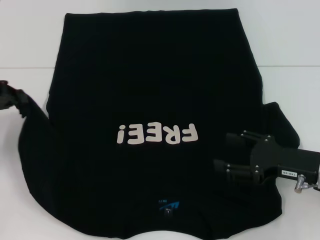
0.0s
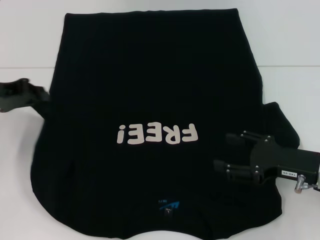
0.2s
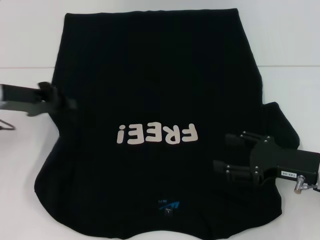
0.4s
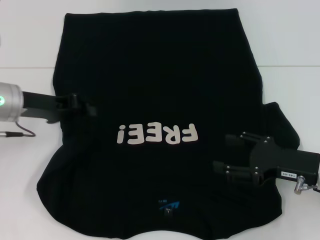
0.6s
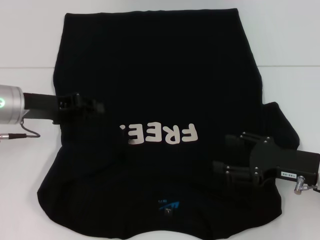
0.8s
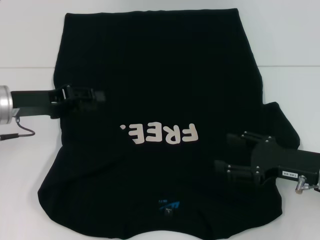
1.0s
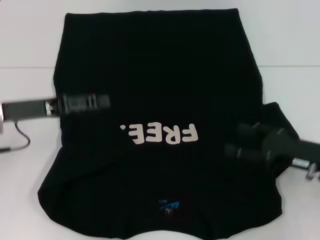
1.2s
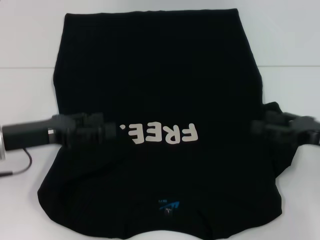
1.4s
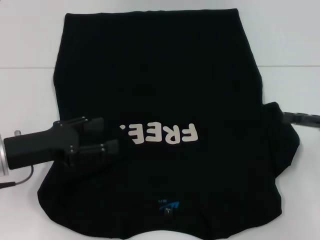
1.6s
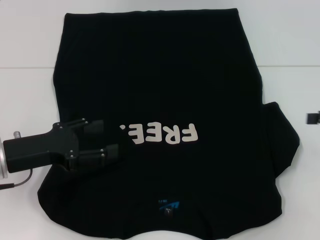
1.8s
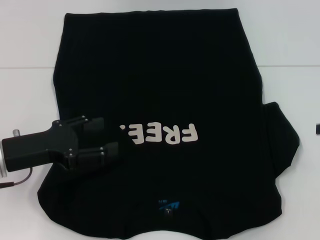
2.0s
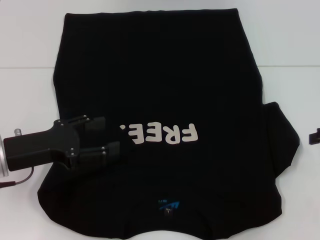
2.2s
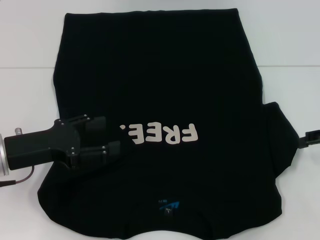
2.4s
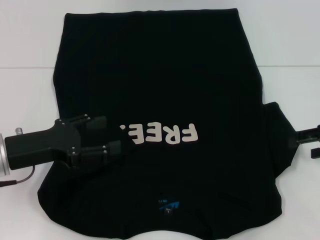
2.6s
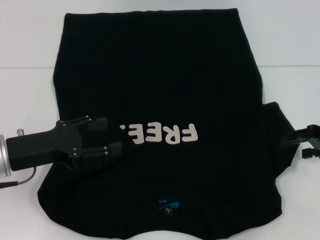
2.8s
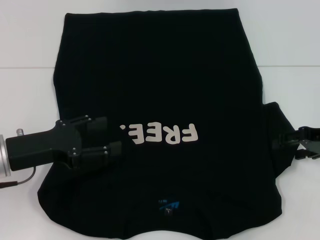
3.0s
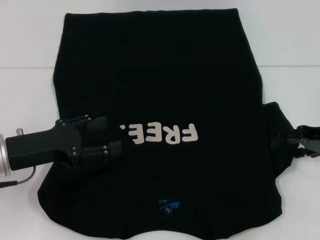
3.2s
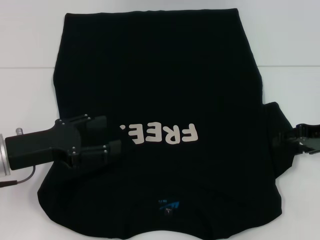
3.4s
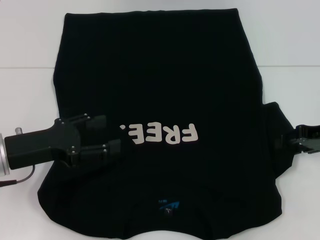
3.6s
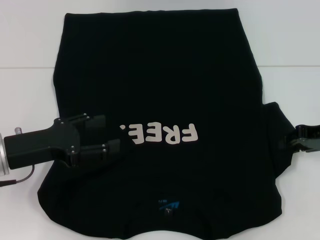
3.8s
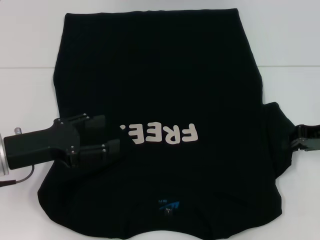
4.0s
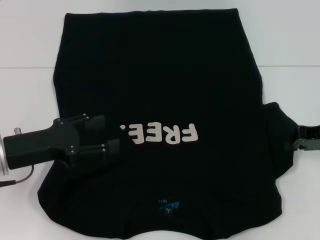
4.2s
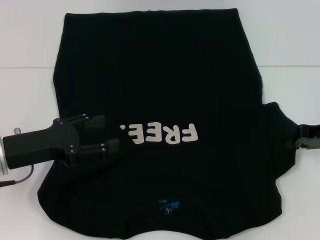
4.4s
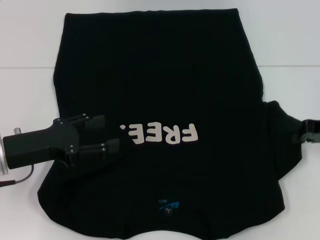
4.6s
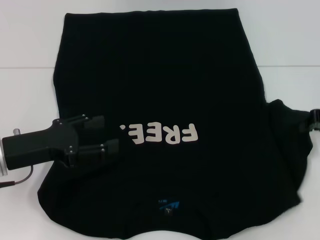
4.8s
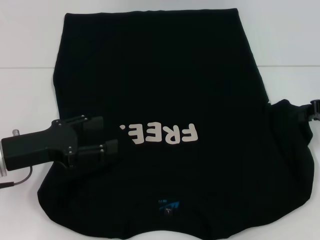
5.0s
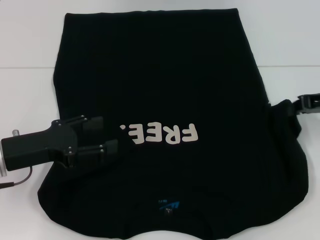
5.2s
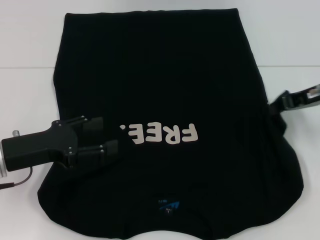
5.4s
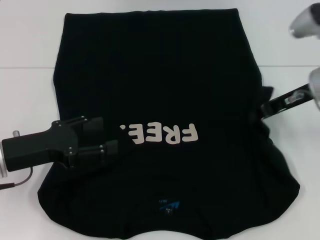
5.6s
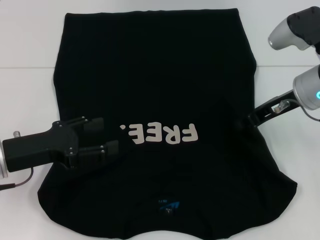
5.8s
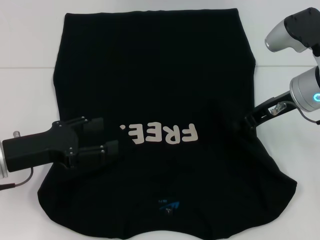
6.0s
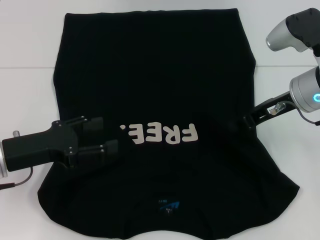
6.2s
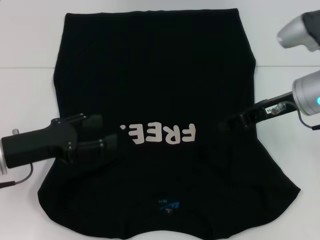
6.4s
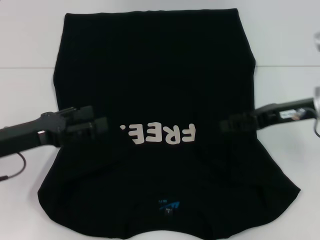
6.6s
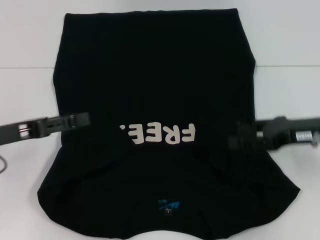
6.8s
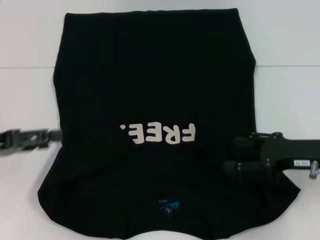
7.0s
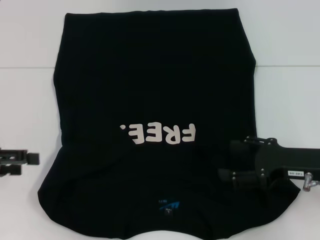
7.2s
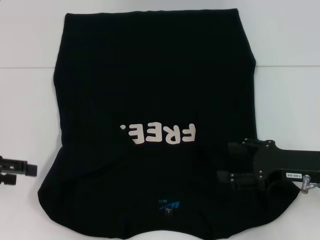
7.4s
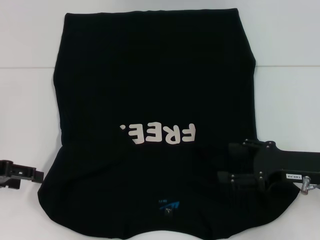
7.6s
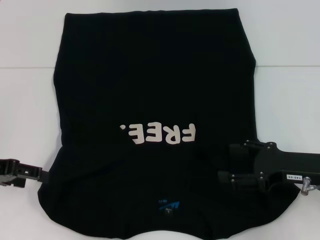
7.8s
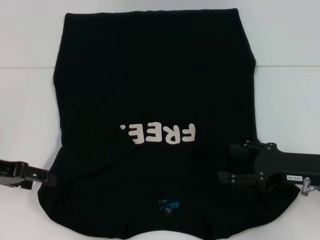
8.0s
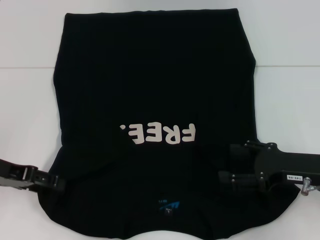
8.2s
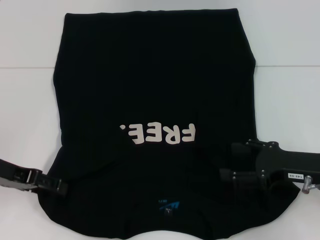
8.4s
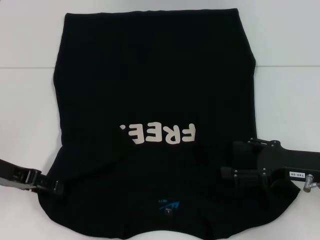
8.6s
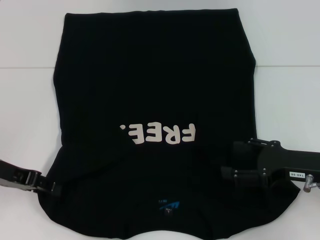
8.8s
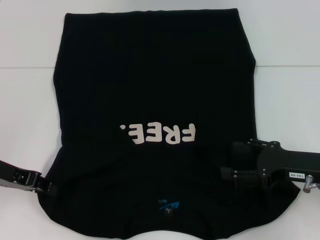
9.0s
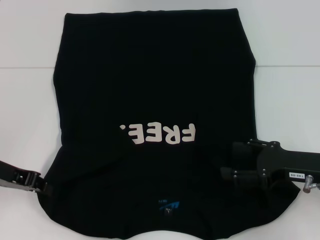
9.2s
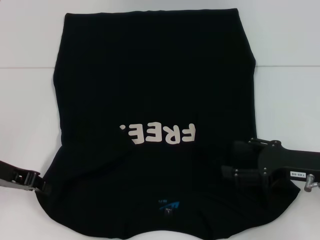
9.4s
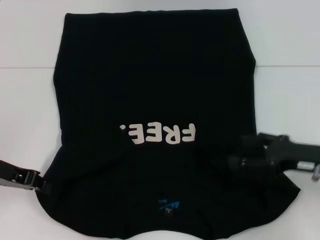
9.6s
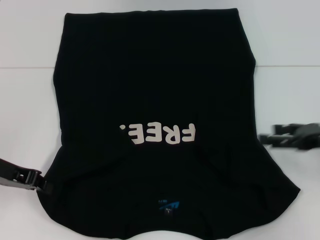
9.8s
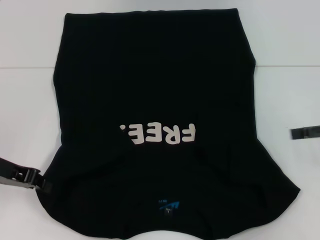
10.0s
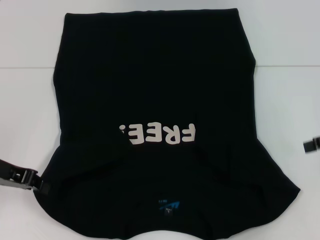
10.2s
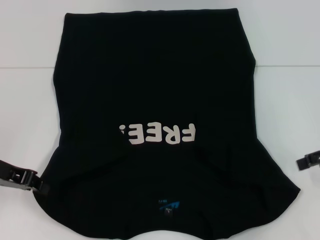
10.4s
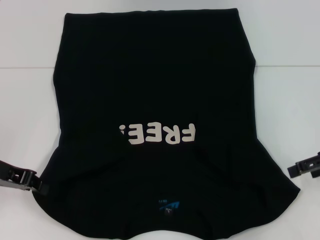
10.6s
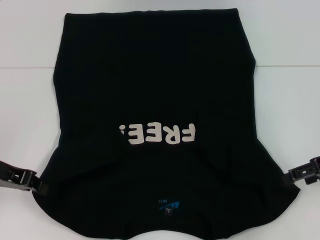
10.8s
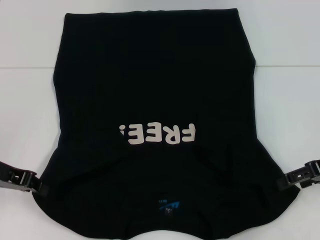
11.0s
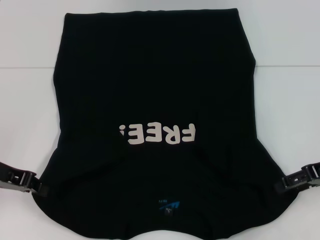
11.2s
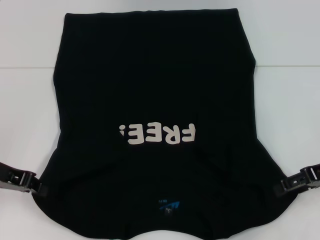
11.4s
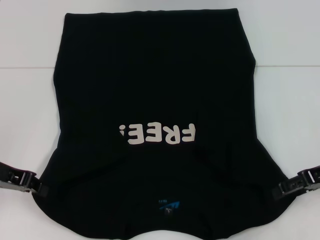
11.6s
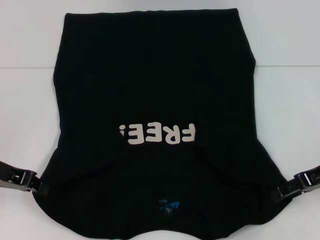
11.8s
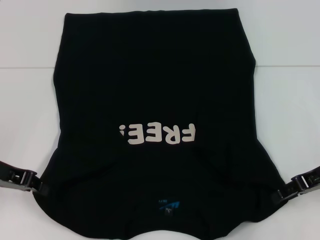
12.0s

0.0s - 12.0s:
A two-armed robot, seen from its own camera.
Step, 1.0s - 6.4s: Fold the bottom right sleeve with your right hand.
Step, 6.6s - 9.6s: Grab the bottom left corner with your left hand.
0.0s - 1.6s: The left gripper moves to the right, backward and downward, roughly 15 cm, and opens its fingers, while the right gripper shifts roughly 10 cm to the right and upward.
1.6s - 3.0s: The right gripper changes place by some 5 cm.
3.0s - 4.4s: The right gripper closes its fingers.
4.4s - 6.0s: The right gripper is displaced to the left by approximately 10 cm.
6.0s - 7.6s: The left gripper goes roughly 10 cm to the left; the right gripper moves backward, downward and to the right, approximately 15 cm, and opens.
7.6s - 9.0s: The left gripper shifts by approximately 5 cm, and closes.
9.0s - 10.4s: The left gripper closes up. The right gripper moves upward and to the right, some 10 cm.
10.4s - 12.0s: The right gripper travels to the left by about 5 cm.

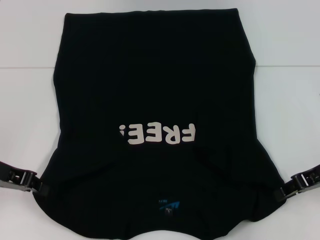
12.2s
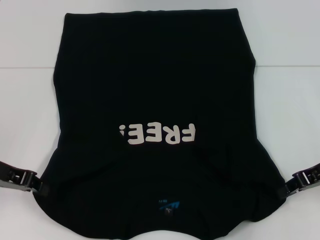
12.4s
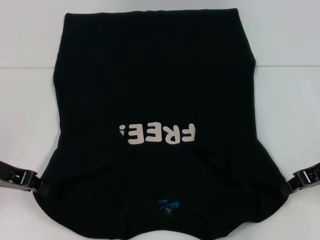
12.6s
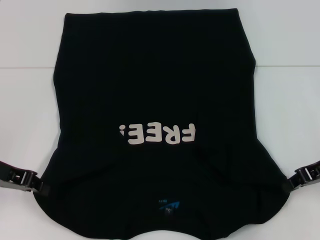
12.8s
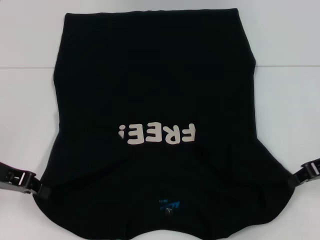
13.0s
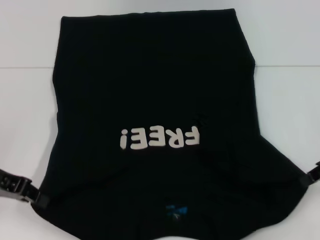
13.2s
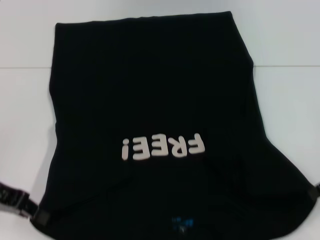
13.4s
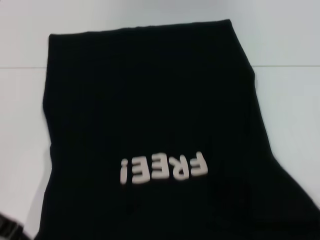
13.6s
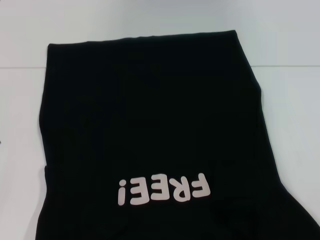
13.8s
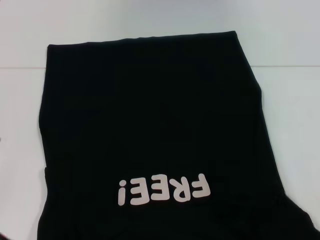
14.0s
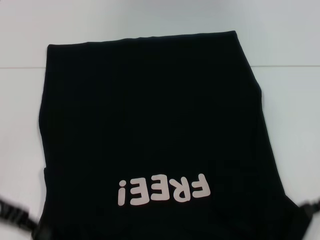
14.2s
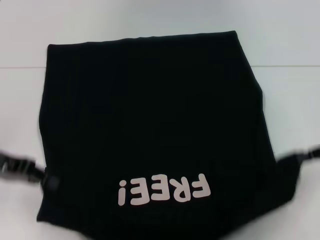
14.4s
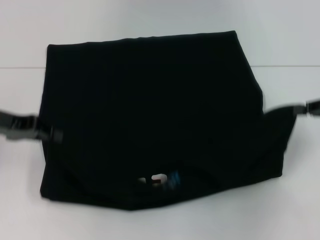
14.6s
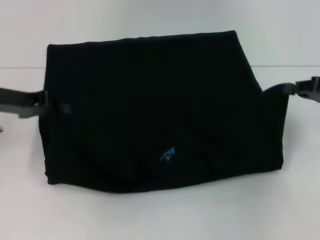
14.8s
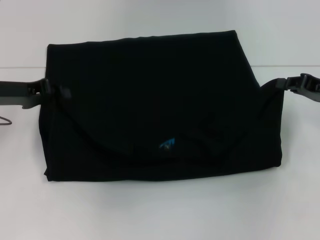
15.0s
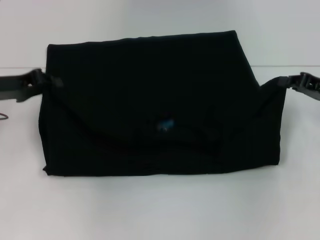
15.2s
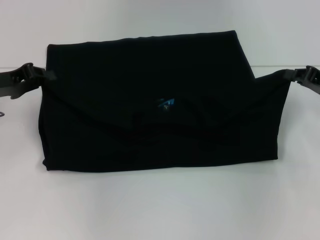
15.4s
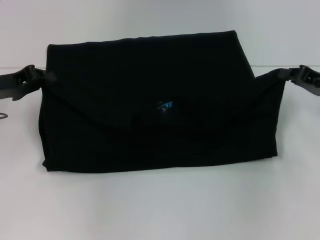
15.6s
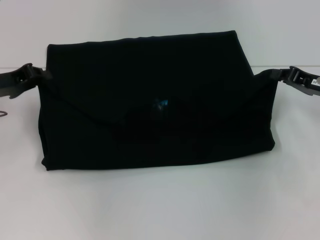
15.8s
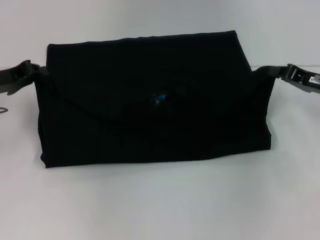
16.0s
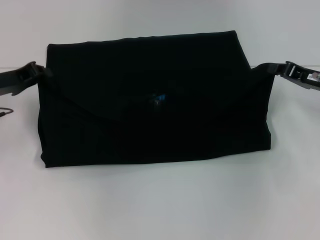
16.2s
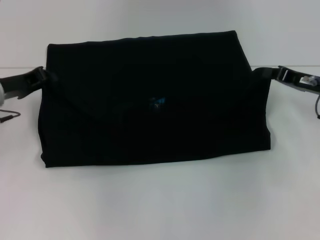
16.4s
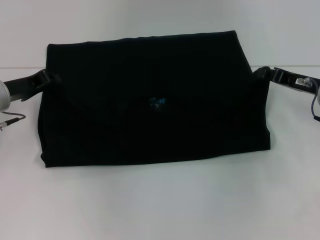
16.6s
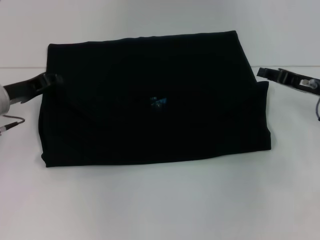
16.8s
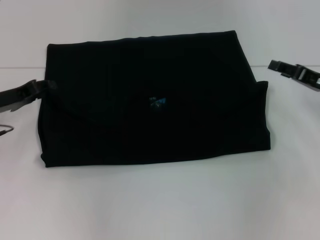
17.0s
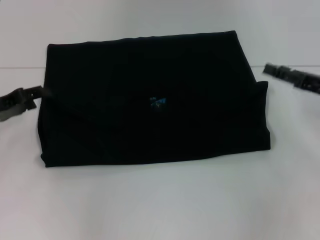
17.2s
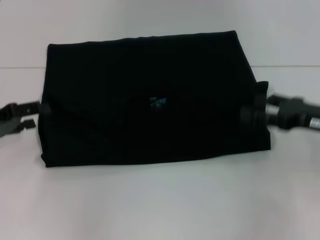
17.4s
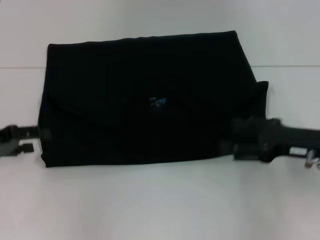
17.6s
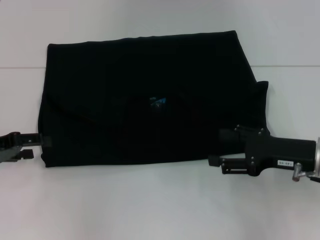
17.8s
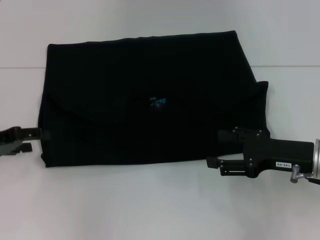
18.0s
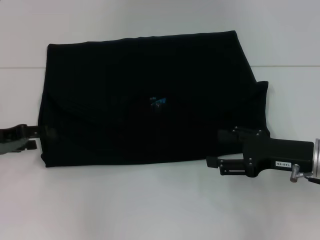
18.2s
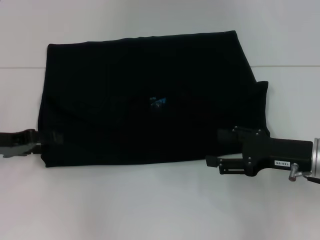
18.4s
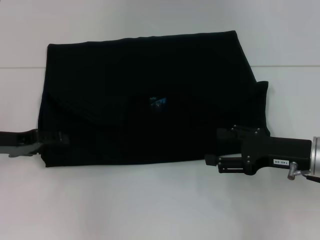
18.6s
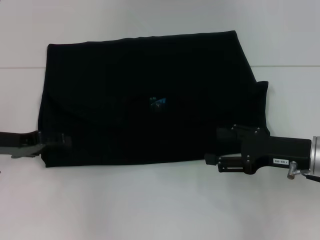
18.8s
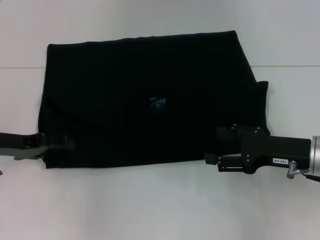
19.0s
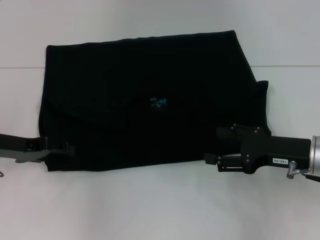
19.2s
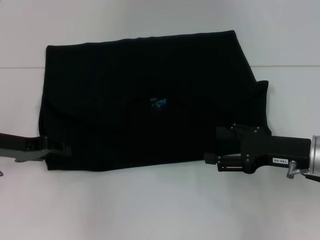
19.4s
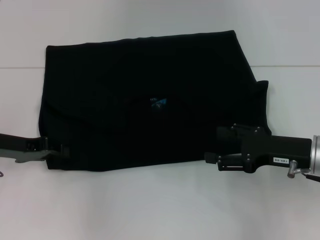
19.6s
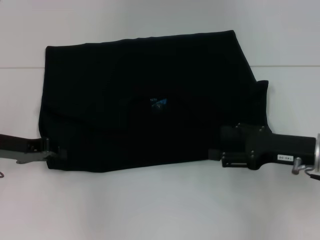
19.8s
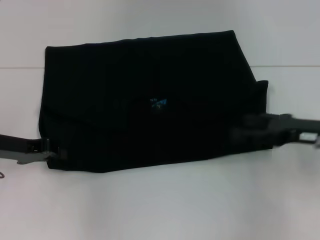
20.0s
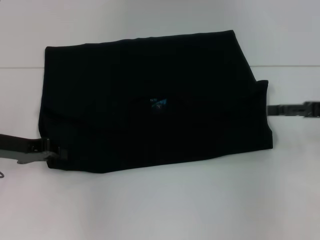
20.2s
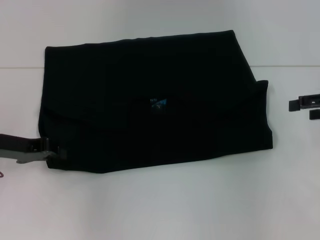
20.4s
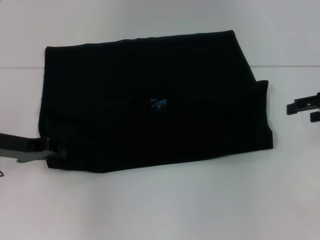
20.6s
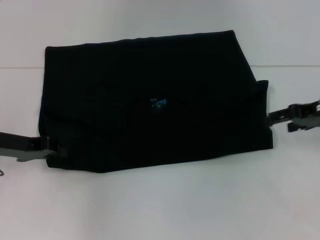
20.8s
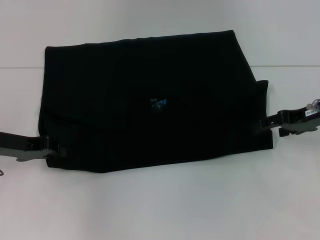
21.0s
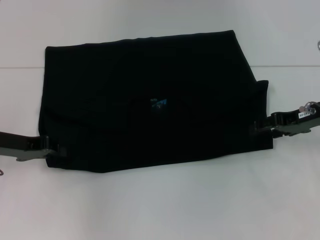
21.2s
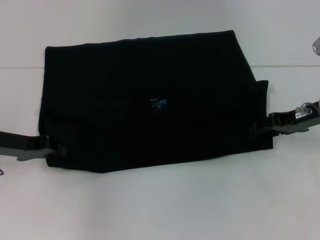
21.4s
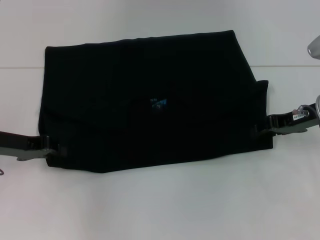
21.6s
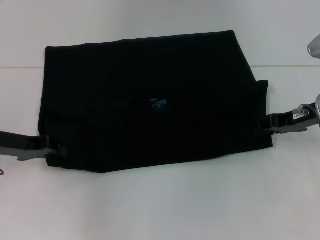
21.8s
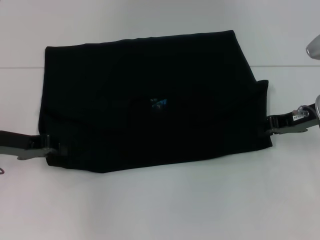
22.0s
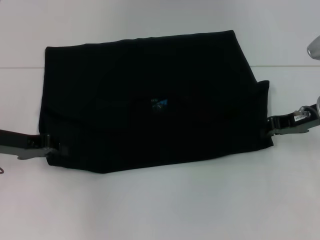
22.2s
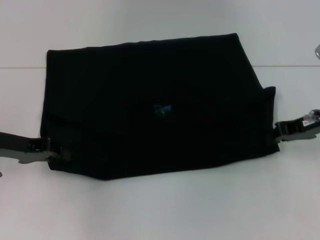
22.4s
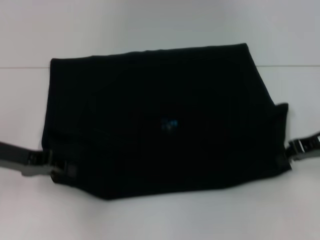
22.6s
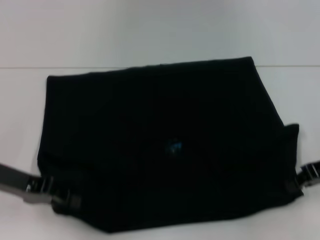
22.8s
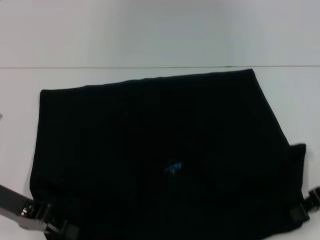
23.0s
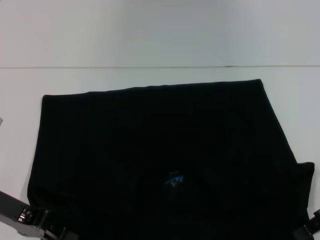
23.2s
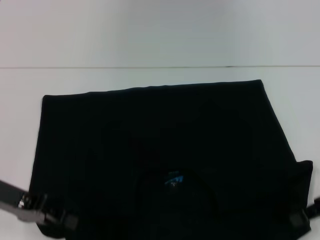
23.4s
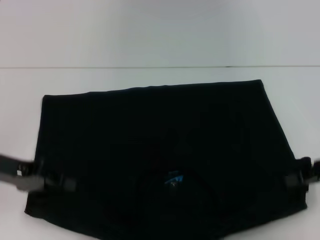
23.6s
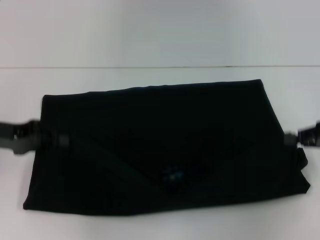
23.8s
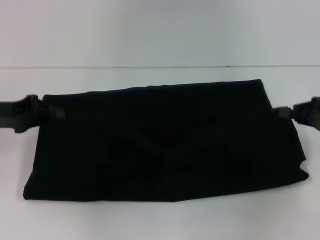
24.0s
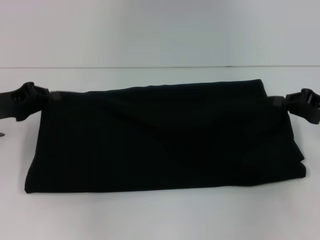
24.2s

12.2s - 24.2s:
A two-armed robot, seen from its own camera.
Step, 13.2s - 16.8s: Fold the clothes with your left hand.
Step, 13.2s - 16.8s: Fold the clothes with your right hand.
Step, 17.0s - 23.2s: Pull the clothes with your left hand.
Step, 17.0s - 23.2s: Pull the clothes with your right hand.
12.2s - 13.8s: The right gripper shifts by approximately 5 cm, and closes up.
13.8s - 15.2s: The two grippers go some 10 cm forward.
15.2s - 16.6s: The right gripper changes place by about 5 cm.
16.6s - 18.2s: The left gripper goes about 10 cm backward and to the left, and opens; the right gripper heads backward, covering approximately 10 cm, and opens up.
18.2s - 19.8s: The left gripper closes up.
19.8s - 21.2s: The right gripper moves forward, approximately 10 cm, and goes to the right and returns, about 10 cm each way.
21.2s - 22.6s: The right gripper closes.
